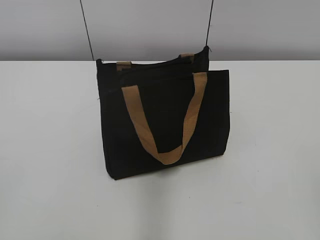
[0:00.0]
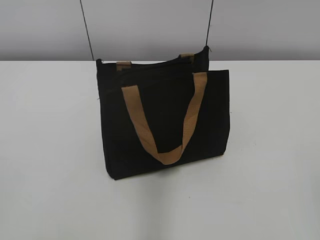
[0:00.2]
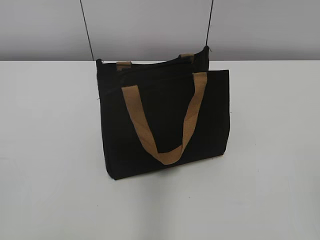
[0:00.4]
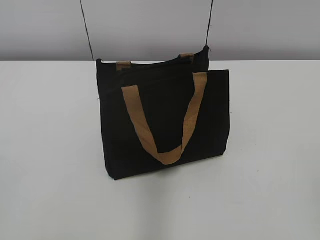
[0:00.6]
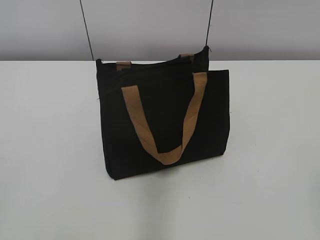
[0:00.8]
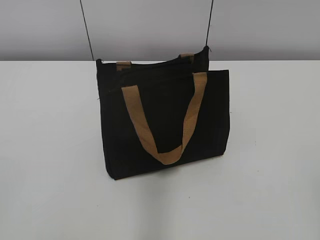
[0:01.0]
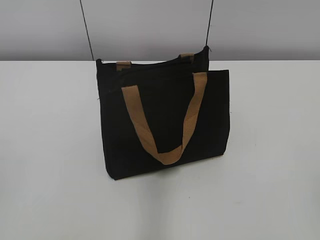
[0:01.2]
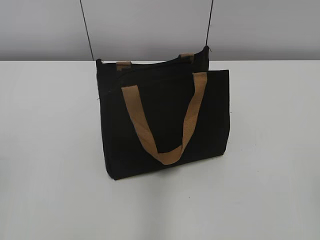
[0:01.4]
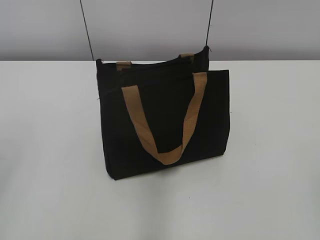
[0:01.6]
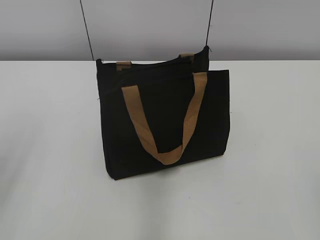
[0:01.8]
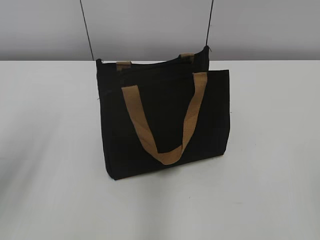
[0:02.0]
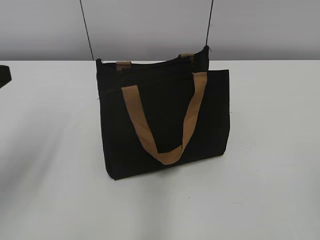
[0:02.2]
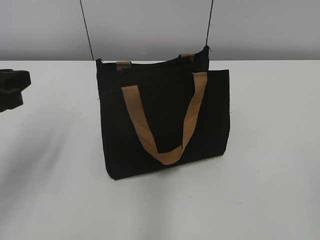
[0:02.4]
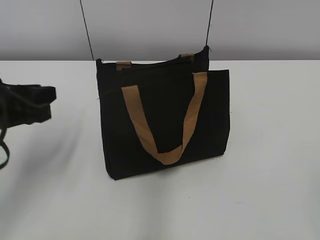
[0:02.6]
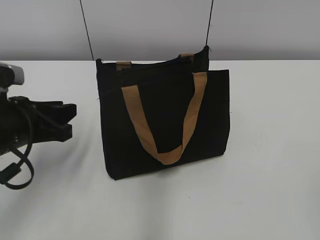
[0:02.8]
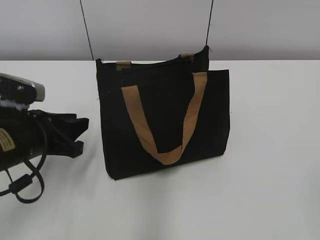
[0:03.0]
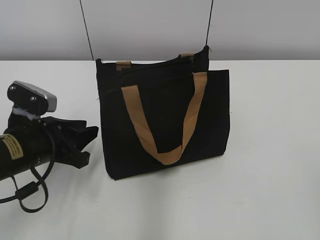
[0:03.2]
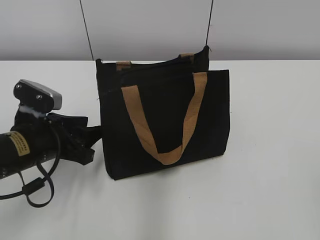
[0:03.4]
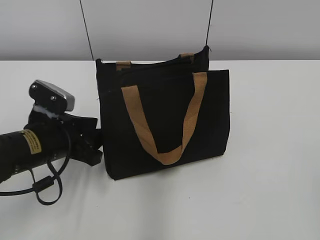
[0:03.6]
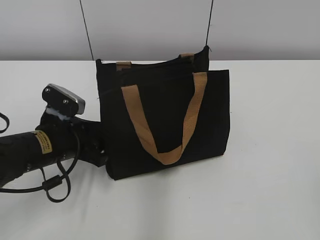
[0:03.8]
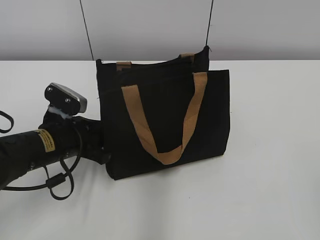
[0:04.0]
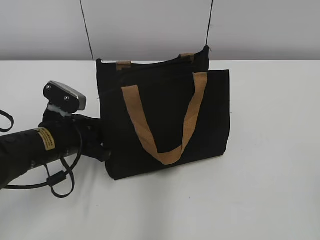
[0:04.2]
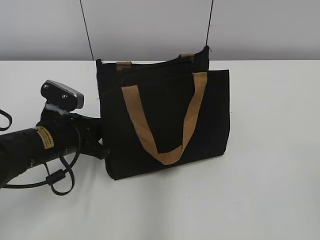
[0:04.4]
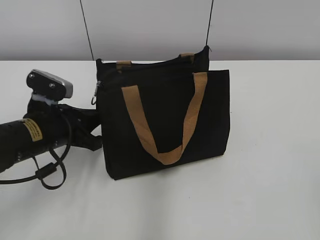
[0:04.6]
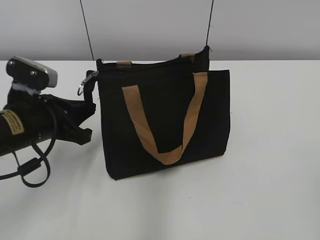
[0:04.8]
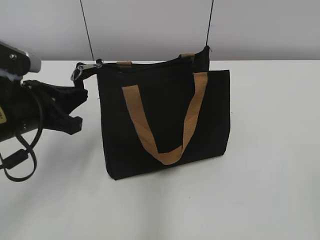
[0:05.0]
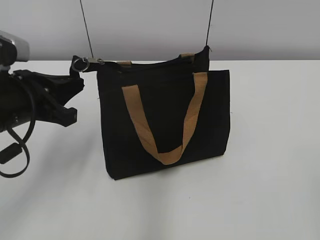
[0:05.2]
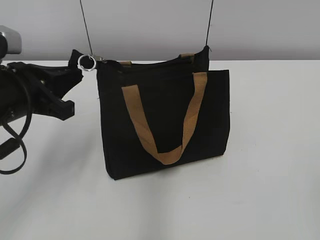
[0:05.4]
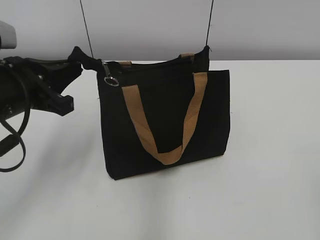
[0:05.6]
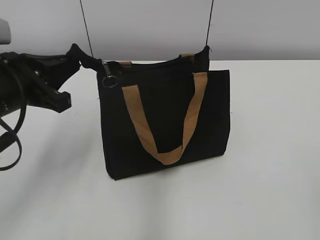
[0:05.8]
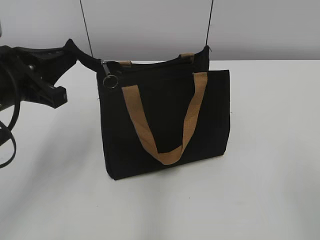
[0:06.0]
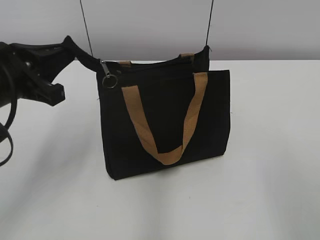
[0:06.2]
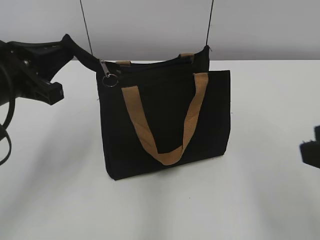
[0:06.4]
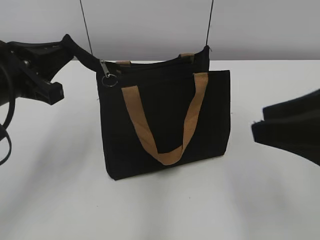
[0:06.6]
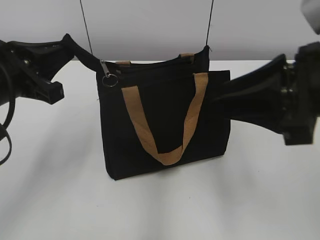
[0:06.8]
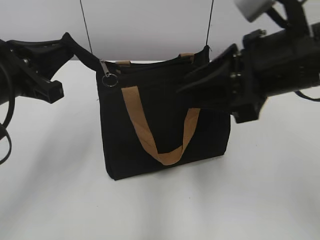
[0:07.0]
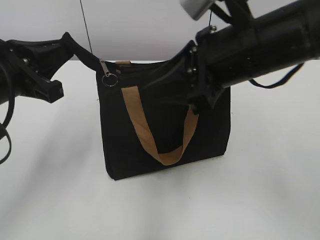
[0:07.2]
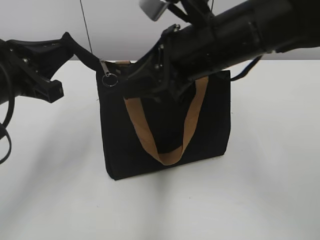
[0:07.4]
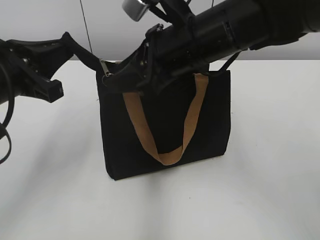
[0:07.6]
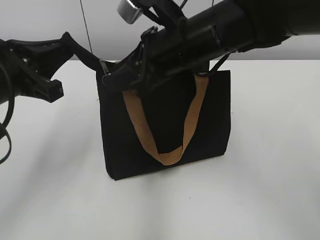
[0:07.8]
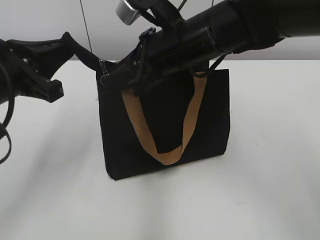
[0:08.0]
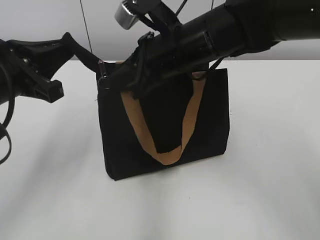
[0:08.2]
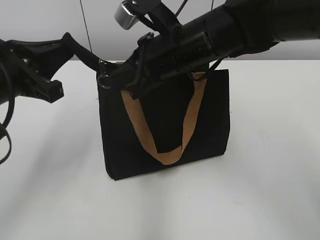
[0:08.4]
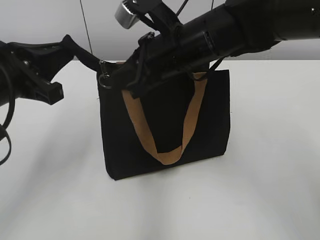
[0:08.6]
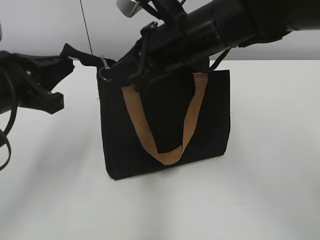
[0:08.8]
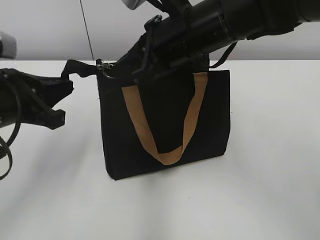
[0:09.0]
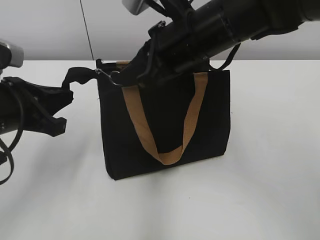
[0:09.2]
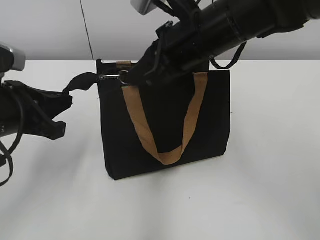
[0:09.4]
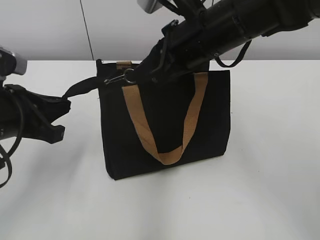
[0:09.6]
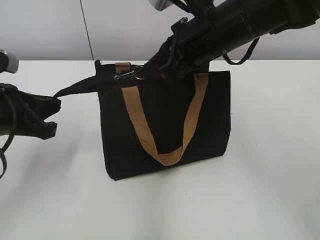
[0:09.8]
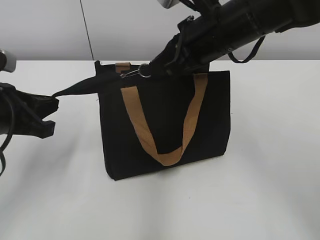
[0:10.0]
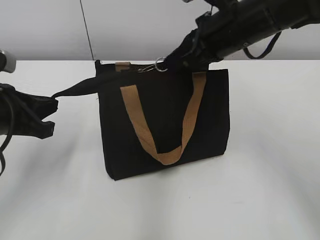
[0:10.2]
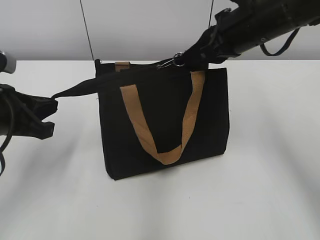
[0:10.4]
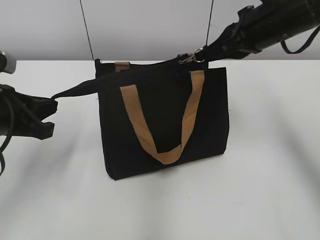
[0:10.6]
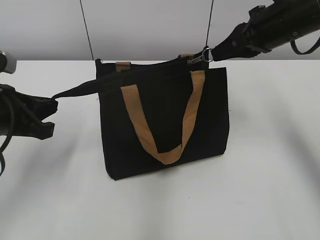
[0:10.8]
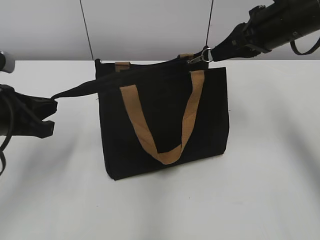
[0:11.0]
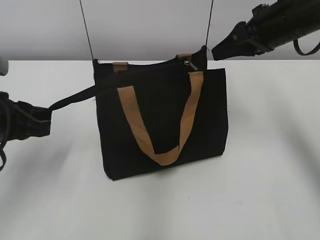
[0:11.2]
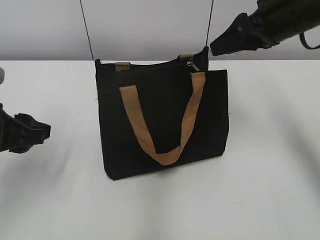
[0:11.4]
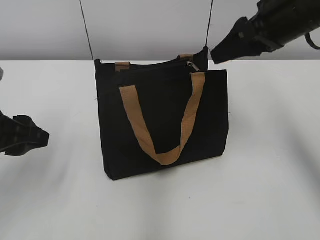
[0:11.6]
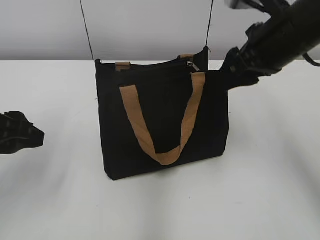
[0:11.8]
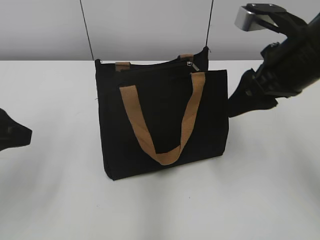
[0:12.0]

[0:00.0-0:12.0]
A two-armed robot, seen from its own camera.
Step, 0.0 to 11.0 s: Zip up the bag with your right hand.
1.6 to 3.0 s: The left gripper travels downward, forward and to the right by approximately 25 cm.
3.0 to 4.4 s: The left gripper changes place by some 5 cm, and closes.
4.4 to 6.0 s: The left gripper moves upward, roughly 15 cm.
6.0 to 7.6 s: The right gripper shifts some 35 cm forward and to the left.
7.6 to 9.0 s: The right gripper closes.
9.0 to 10.4 s: The right gripper shifts about 10 cm to the right.
10.4 to 12.0 s: The right gripper shifts some 5 cm backward, and opens. Meanwhile the left gripper ends up roughly 5 cm from where it was, and opens up.

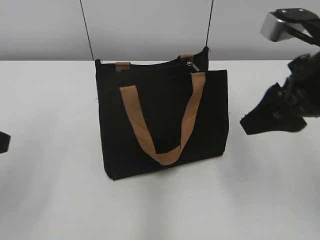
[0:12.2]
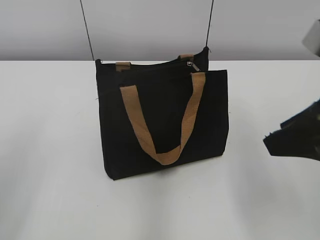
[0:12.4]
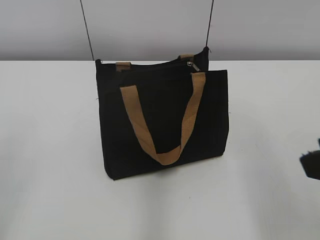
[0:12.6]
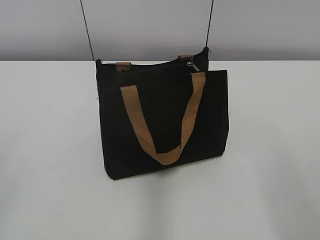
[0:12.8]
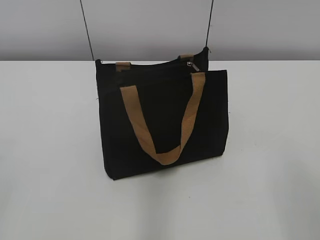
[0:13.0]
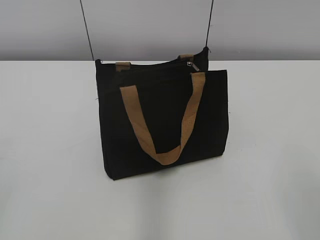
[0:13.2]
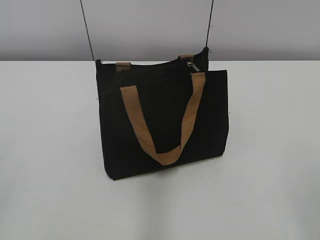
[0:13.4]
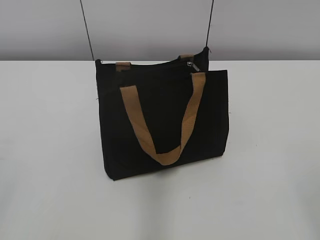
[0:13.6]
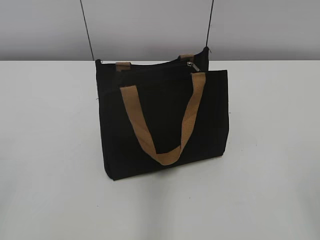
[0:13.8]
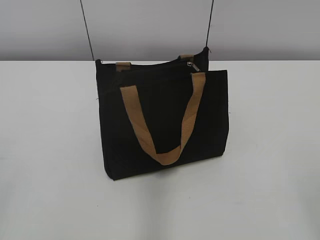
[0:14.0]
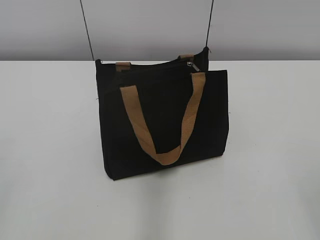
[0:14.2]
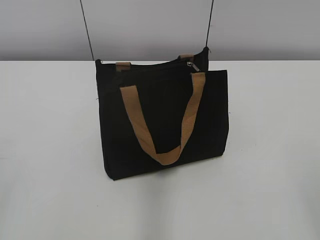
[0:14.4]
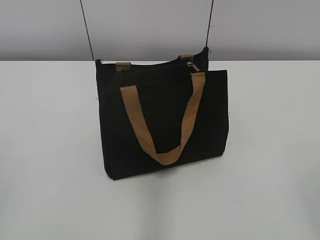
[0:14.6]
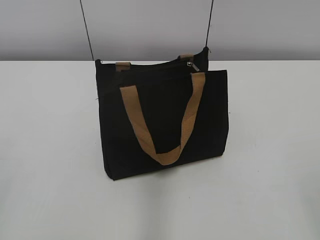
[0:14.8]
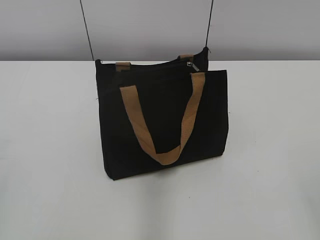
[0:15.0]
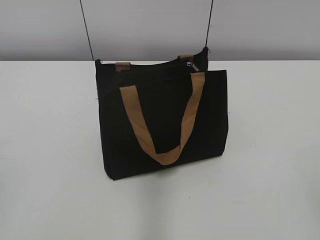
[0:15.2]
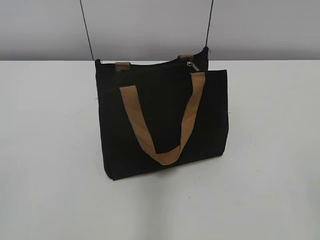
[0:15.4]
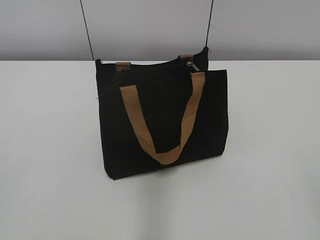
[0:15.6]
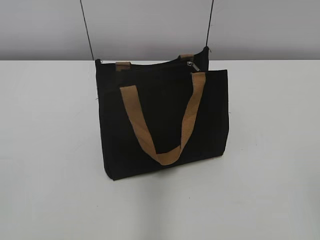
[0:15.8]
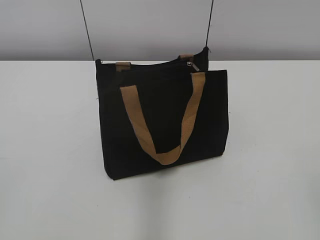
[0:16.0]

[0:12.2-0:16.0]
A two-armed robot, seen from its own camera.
12.2 to 13.4 s: The left gripper travels backward and to the left by about 15 cm. Meanwhile the right gripper shifts roughly 25 cm backward.

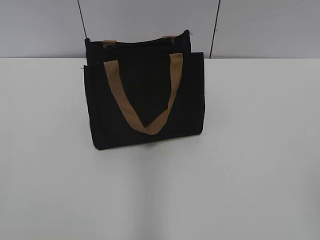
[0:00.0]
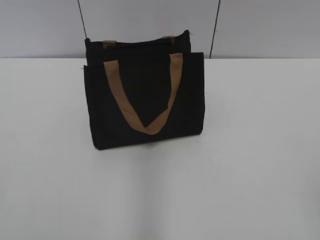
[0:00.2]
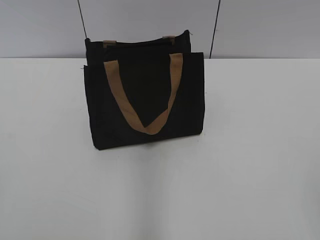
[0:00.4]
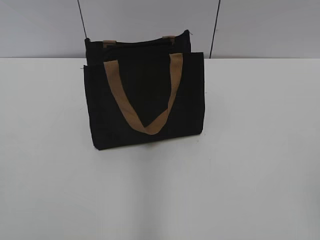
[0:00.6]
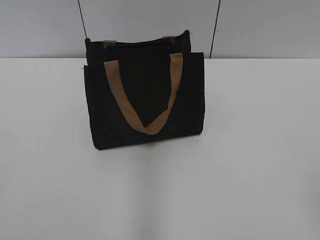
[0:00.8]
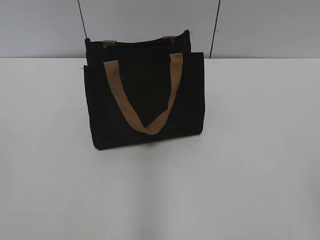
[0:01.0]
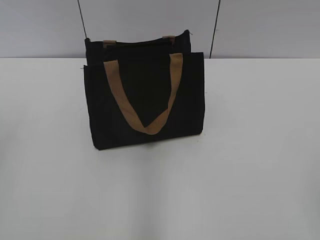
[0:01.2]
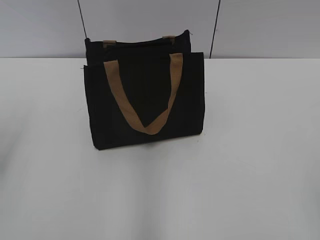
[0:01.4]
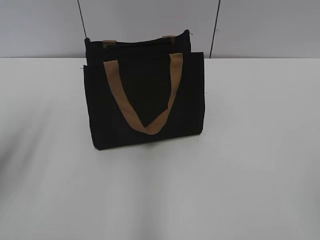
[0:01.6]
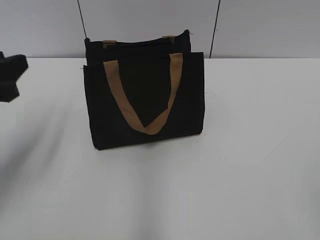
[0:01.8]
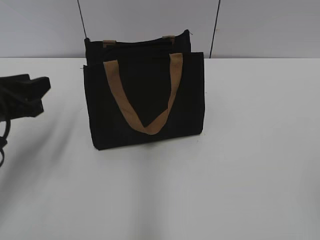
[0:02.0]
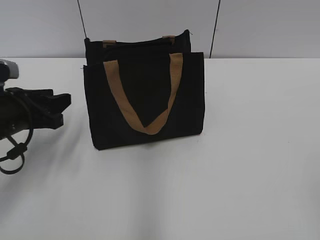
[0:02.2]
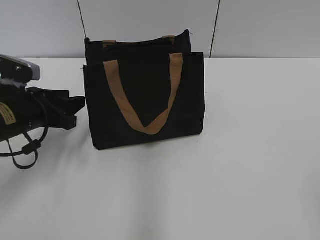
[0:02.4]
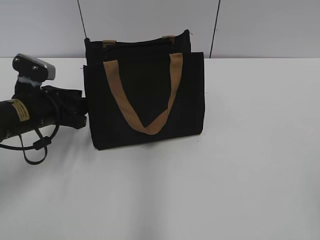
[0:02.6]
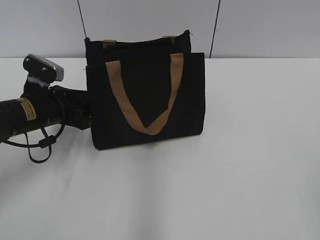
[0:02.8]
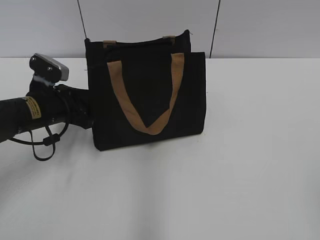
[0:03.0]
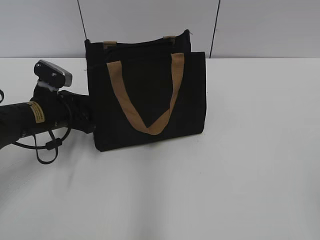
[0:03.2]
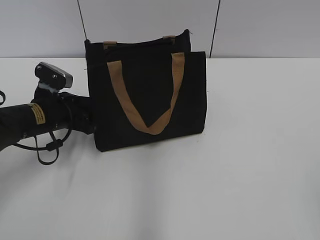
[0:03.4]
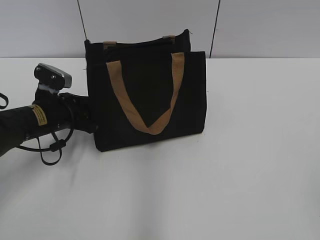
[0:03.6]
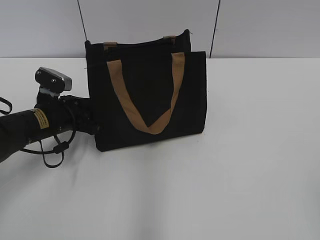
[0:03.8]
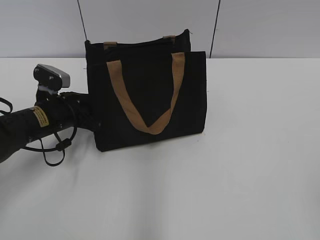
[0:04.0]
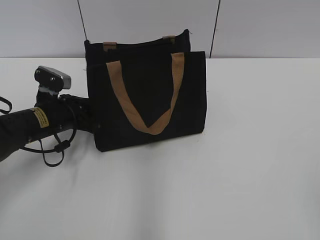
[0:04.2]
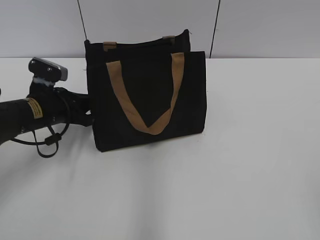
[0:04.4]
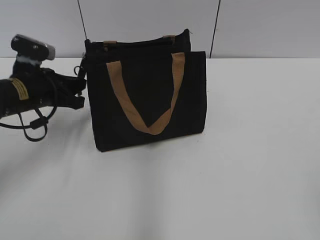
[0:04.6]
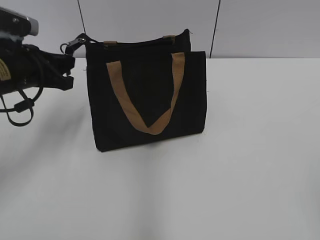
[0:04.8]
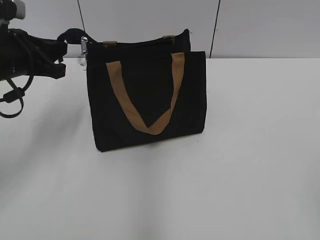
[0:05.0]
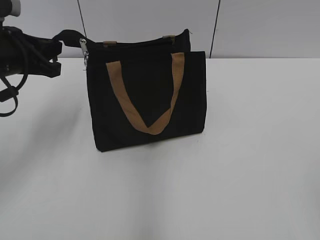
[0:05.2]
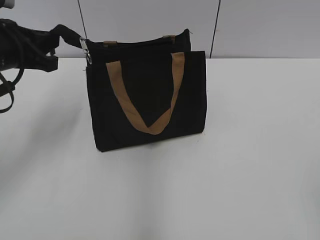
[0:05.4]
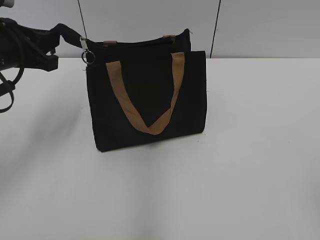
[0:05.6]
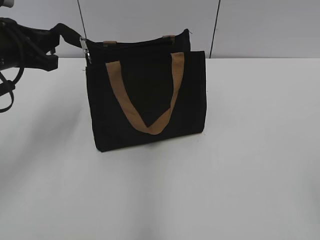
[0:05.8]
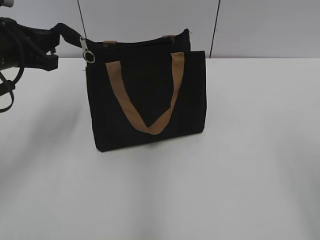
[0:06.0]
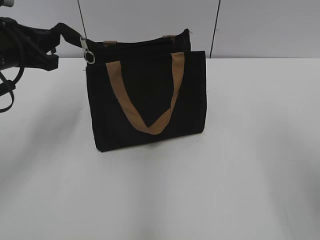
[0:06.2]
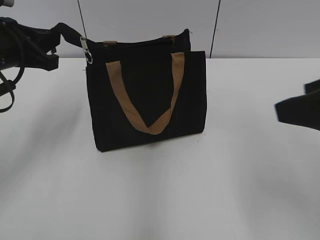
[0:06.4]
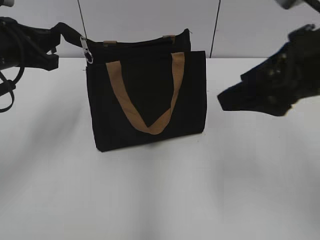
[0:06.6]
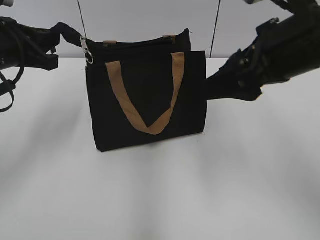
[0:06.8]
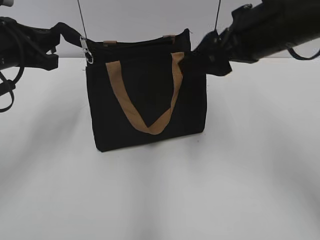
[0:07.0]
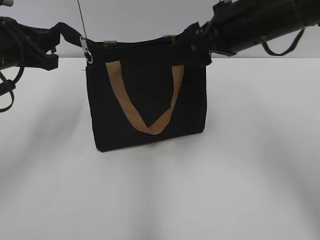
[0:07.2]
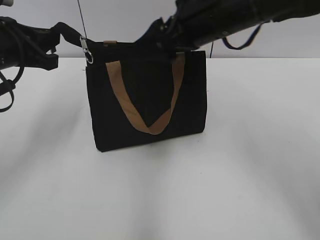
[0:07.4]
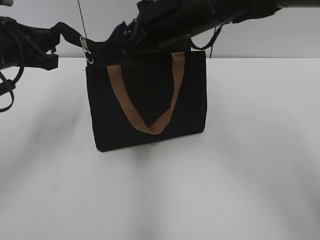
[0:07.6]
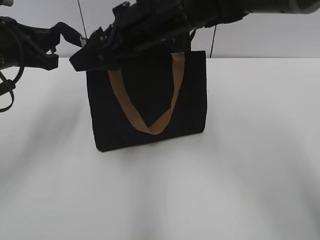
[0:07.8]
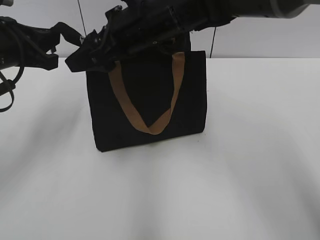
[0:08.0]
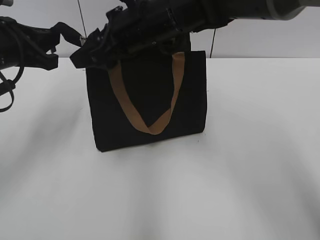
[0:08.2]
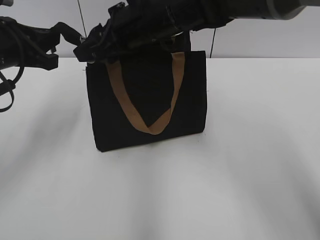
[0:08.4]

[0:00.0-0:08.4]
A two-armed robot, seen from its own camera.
1.4 to 2.8 s: The left gripper travels downward, forward and to the right by roughly 30 cm.
2.8 to 4.2 s: The left gripper closes its fingers.
4.2 to 5.6 s: The left gripper travels upward by roughly 15 cm.
5.6 to 7.0 s: The right gripper travels forward and to the left by about 30 cm.
7.0 to 8.4 s: The right gripper goes about 20 cm to the left and forward.
